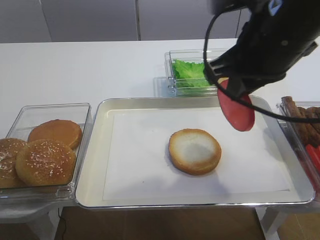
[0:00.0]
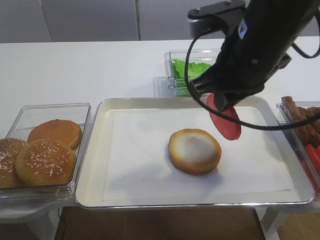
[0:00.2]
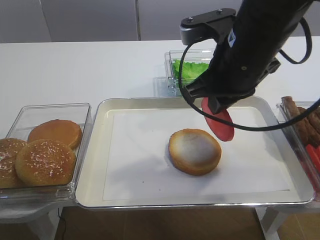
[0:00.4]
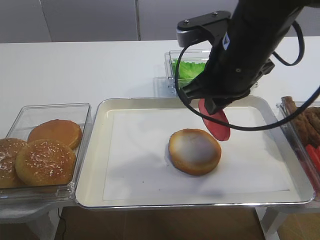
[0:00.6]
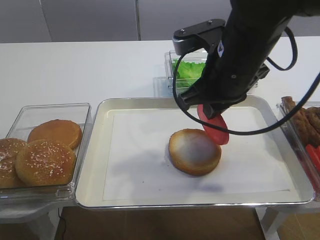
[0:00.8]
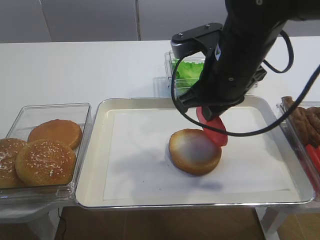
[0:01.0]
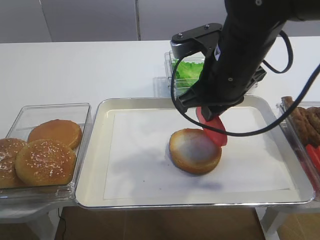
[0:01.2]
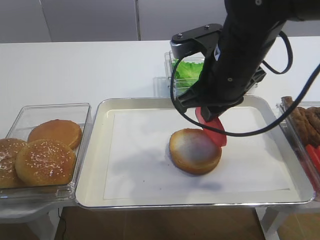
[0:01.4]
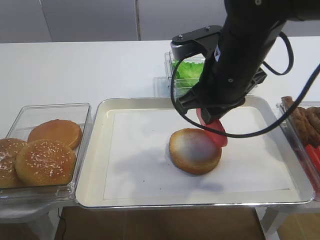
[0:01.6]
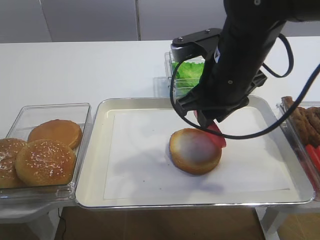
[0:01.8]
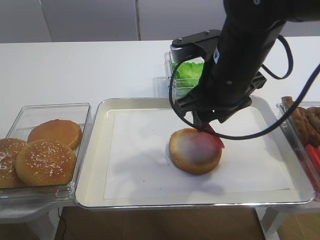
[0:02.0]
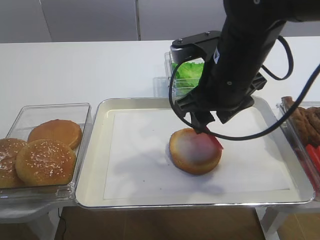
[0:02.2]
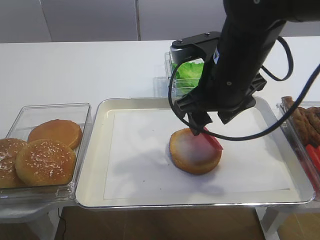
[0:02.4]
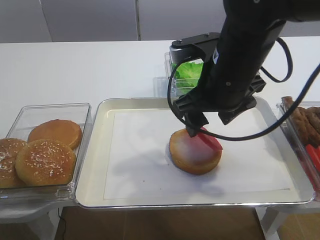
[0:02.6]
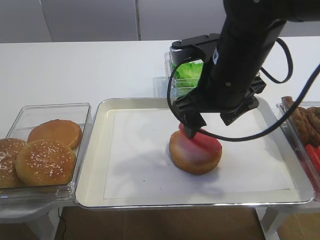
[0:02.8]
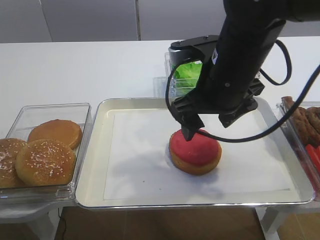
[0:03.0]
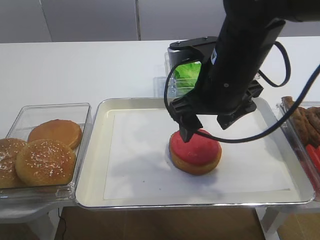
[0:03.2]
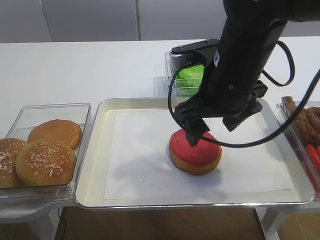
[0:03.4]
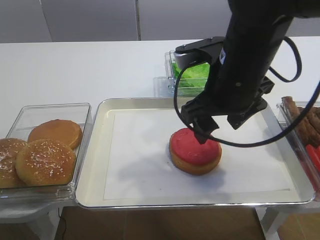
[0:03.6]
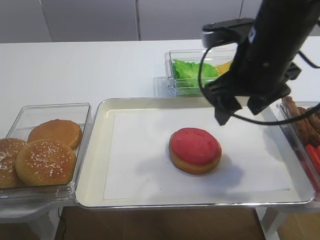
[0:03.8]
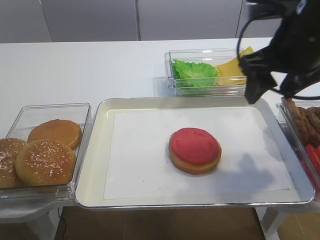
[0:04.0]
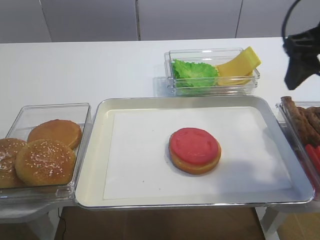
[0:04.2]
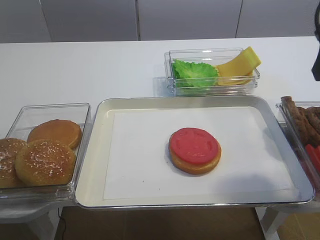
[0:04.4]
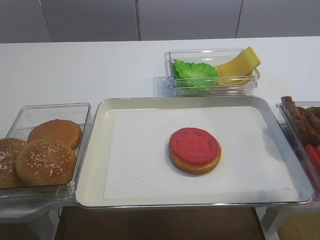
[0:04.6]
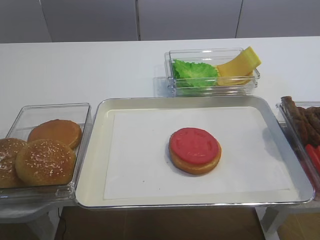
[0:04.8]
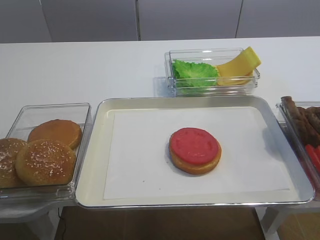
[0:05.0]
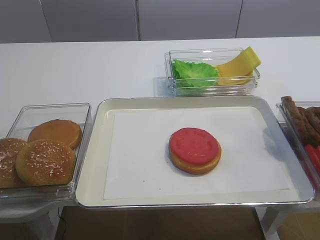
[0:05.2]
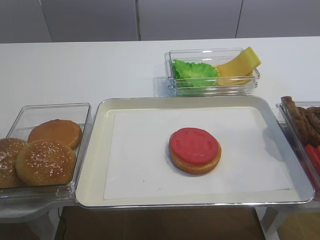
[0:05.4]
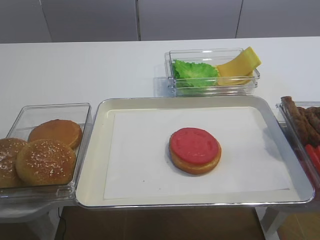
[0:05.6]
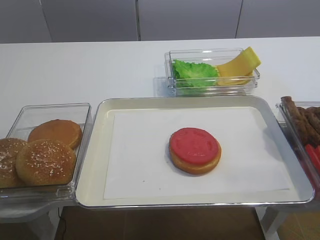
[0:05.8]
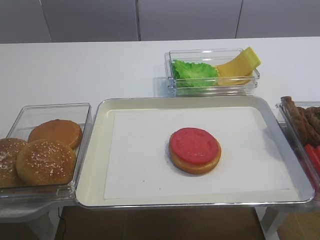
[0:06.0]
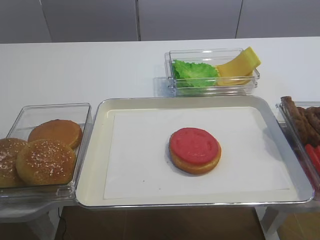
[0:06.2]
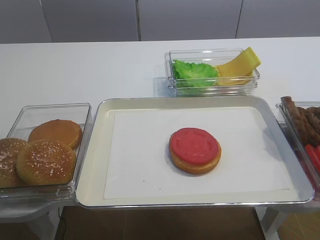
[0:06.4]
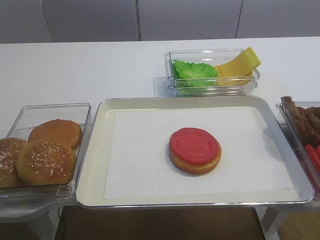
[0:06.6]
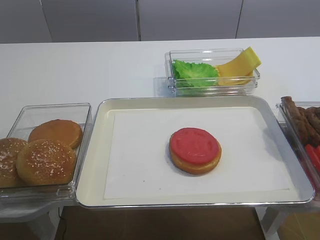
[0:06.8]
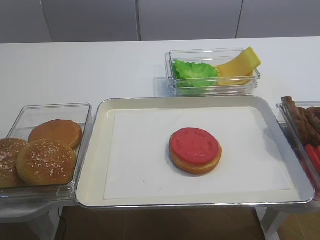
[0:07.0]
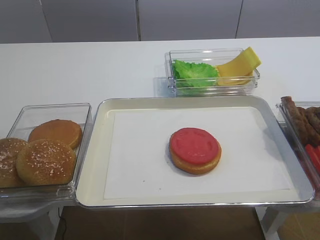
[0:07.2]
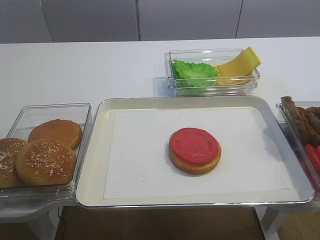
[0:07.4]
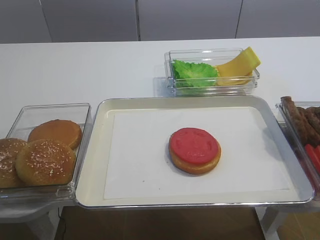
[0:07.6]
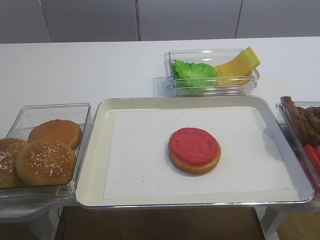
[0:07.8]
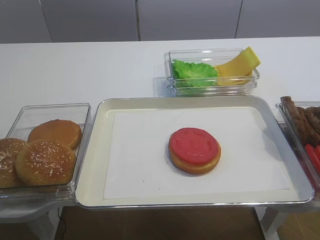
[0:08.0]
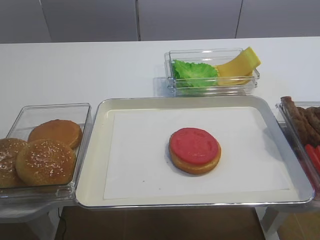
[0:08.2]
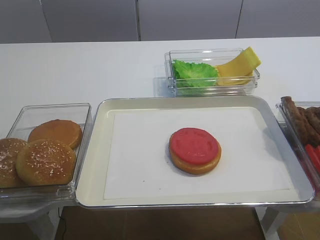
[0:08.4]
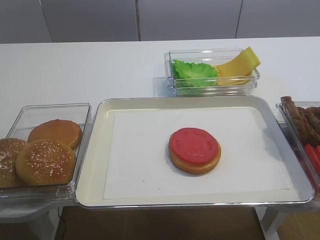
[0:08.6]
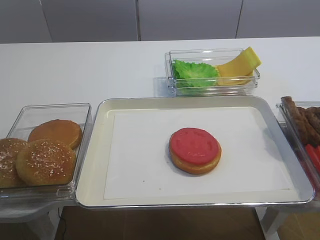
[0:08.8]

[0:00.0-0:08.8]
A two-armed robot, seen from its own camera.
Step, 0:00.0 to 0:03.8: Place the tomato slice on the bread slice with the right gripper.
0:00.0 to 0:01.4: The right gripper goes roughly 5 cm downward.
0:01.4 to 0:03.0: The right gripper opens its fingers.
0:03.0 to 0:04.4: The right gripper is displaced to the right and upward by about 20 cm.
0:04.4 to 0:05.8: The right gripper heads backward, covering some 25 cm.
0:07.4 to 0:08.8: Both grippers stay put.

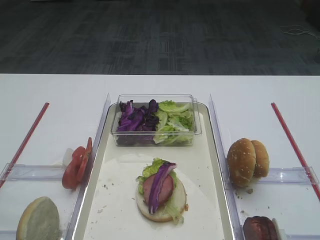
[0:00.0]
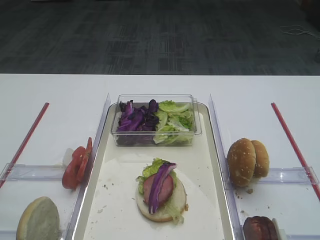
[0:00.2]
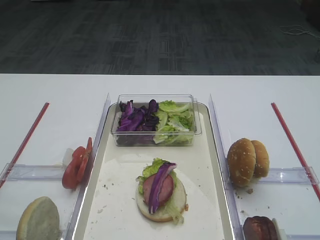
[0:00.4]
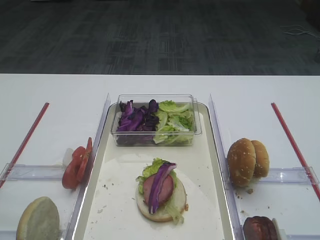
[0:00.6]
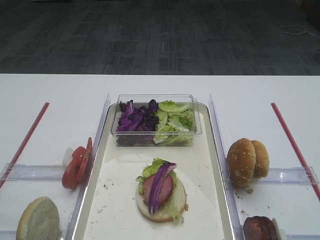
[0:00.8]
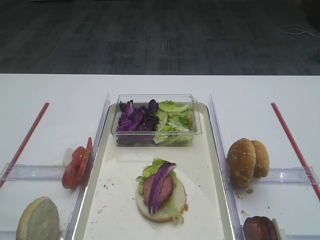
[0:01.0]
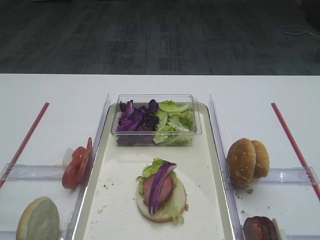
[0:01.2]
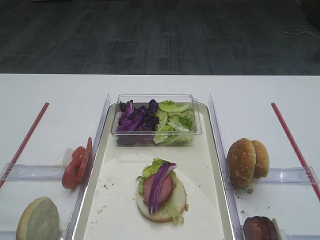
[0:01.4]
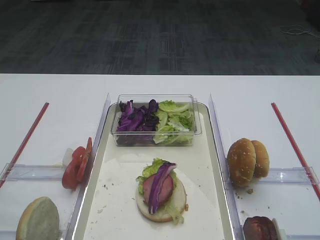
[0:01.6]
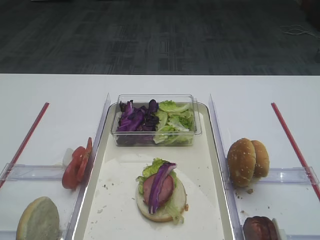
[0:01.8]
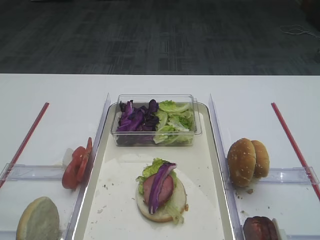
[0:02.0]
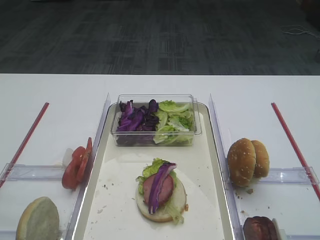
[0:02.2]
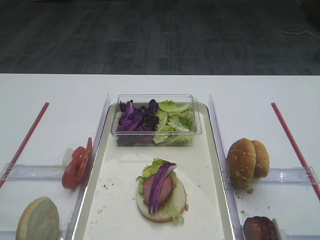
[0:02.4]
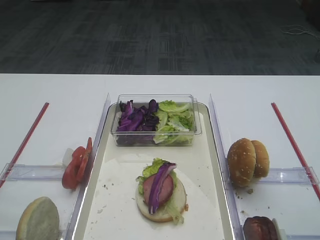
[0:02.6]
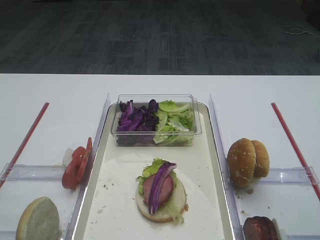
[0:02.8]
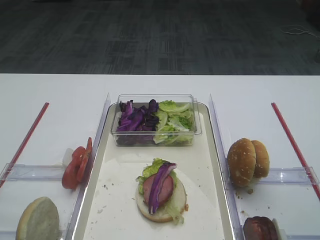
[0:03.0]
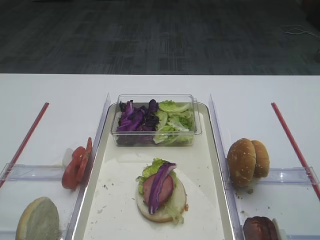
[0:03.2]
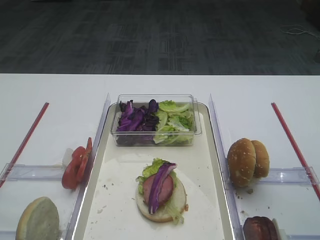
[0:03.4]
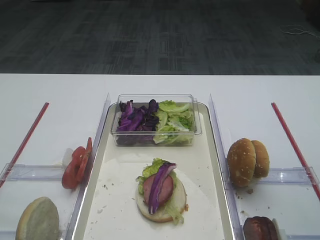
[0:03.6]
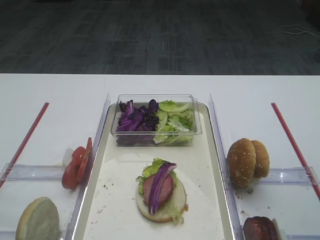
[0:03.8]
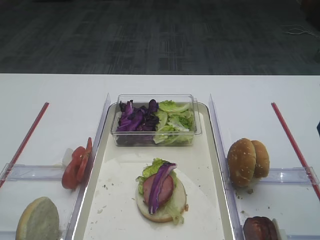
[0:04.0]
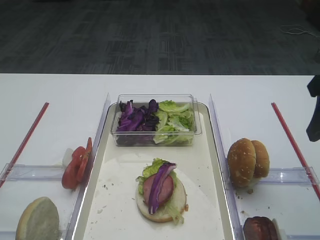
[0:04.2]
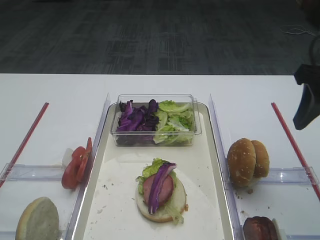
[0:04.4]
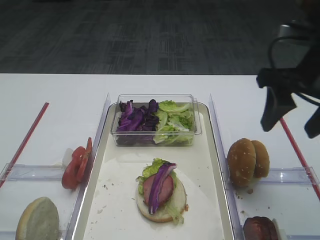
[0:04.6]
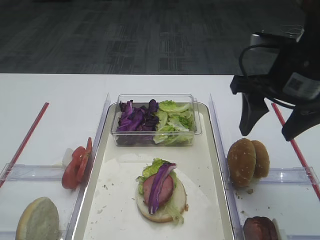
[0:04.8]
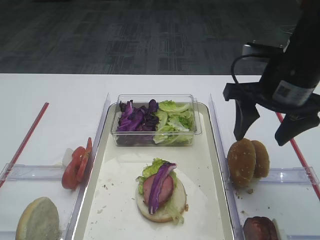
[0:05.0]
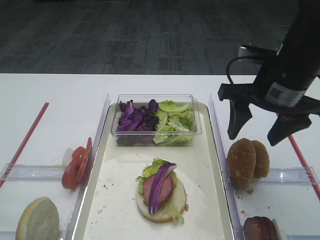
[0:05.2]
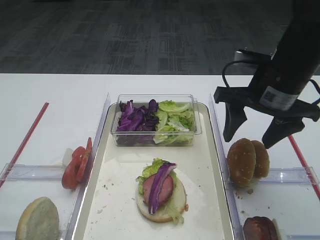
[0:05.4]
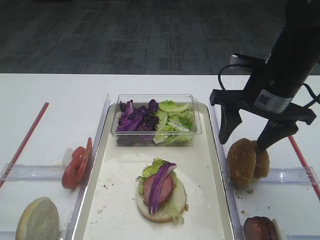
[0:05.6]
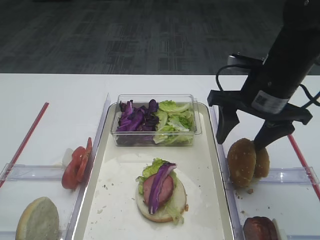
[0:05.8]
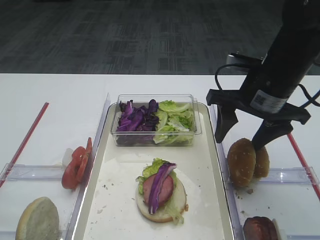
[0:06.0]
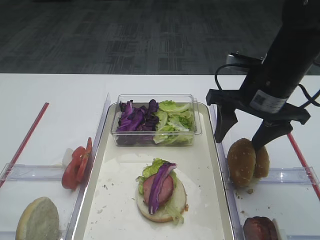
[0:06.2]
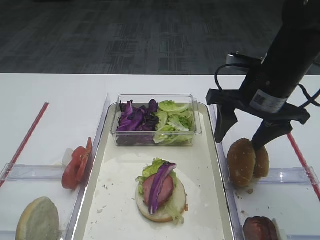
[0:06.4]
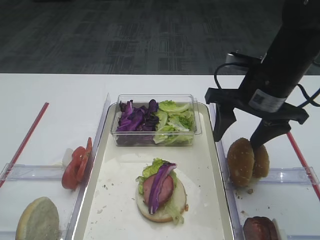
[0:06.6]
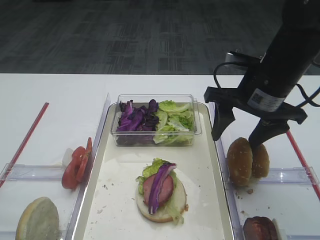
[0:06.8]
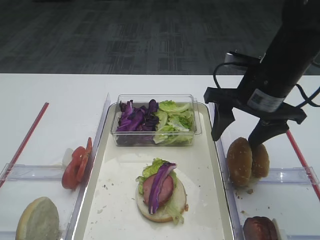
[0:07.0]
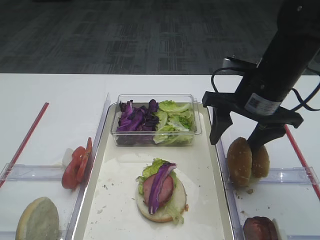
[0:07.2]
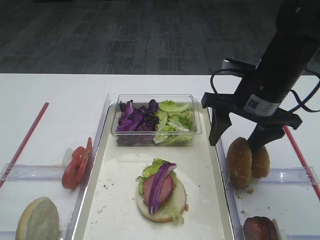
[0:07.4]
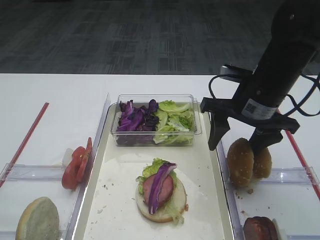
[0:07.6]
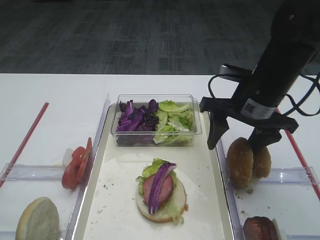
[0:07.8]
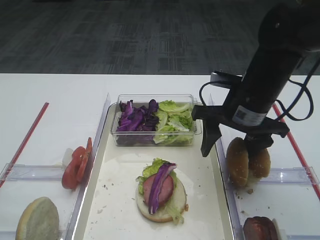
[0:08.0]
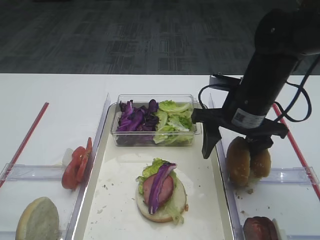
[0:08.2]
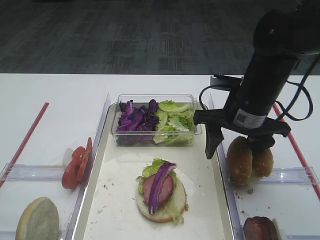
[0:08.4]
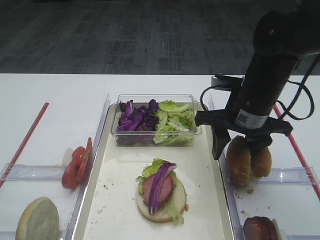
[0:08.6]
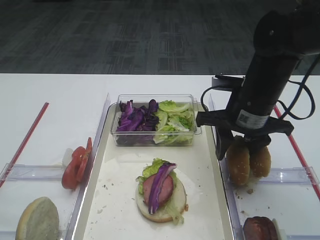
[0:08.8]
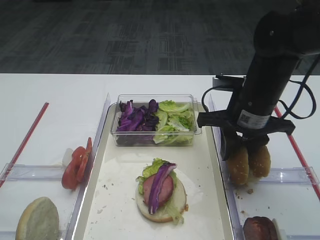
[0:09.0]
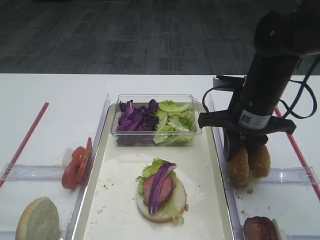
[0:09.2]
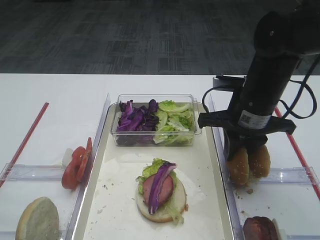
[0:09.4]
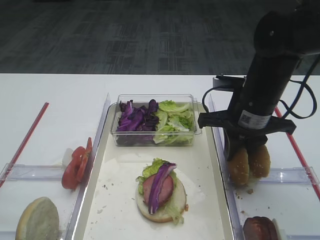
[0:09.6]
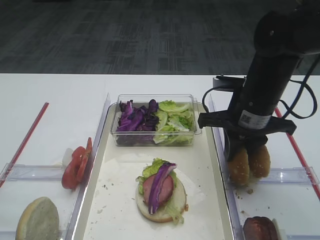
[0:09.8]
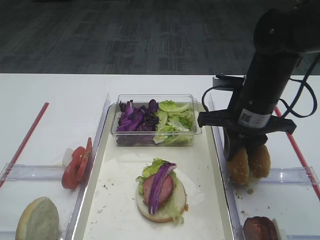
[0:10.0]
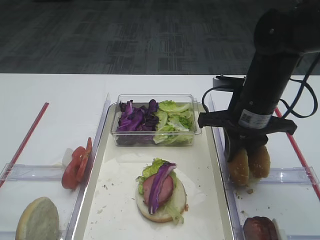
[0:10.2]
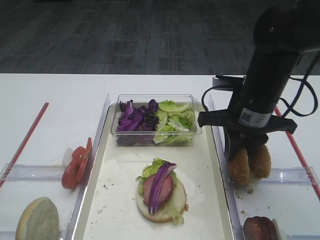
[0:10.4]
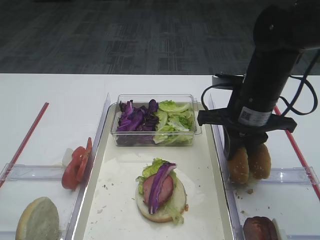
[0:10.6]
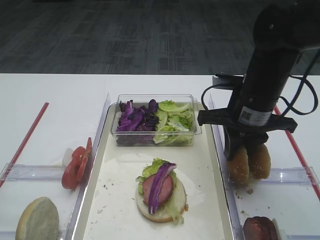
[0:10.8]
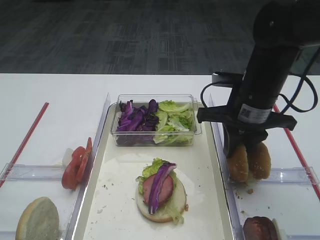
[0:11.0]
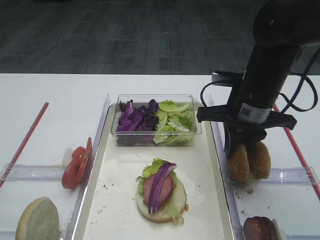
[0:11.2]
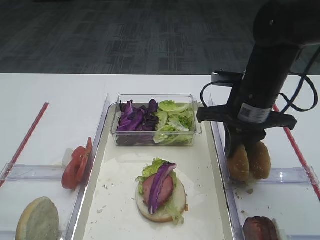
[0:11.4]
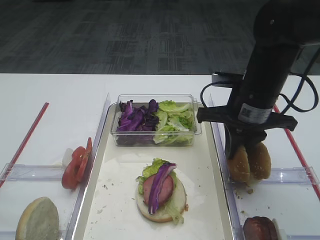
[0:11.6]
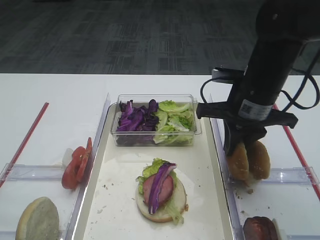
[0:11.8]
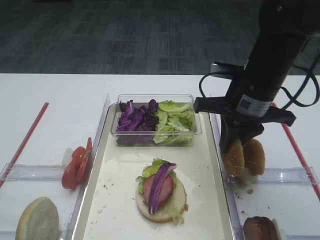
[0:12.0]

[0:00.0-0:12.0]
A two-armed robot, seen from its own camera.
0:03.0 to 0:04.4: The right gripper goes roughly 10 cm forward.
0:04.4 to 0:06.0: The right gripper is displaced to the left, downward and forward by some 15 cm.
0:06.0 to 0:07.6: There are only small adjustments of the grippers.
0:07.6 to 0:09.0: The right gripper closes up.
0:09.0 to 0:10.4: Both grippers stay put.
0:10.4 to 0:12.0: The grippers stay close to where they were, moving slightly.

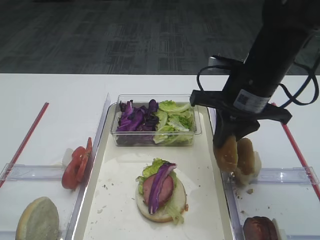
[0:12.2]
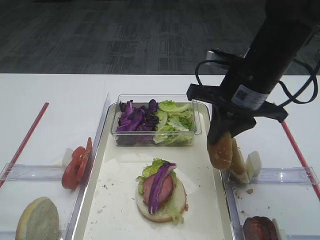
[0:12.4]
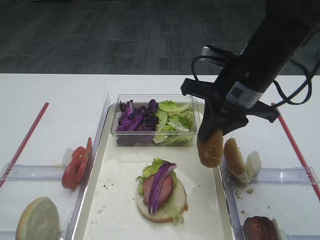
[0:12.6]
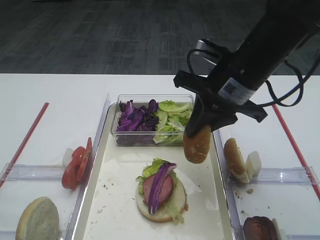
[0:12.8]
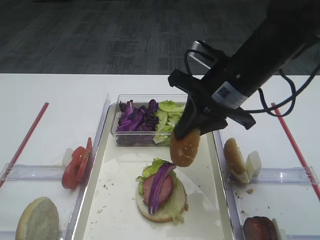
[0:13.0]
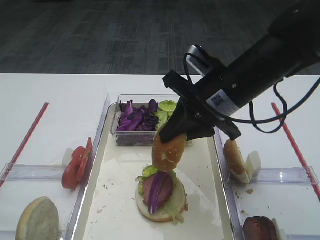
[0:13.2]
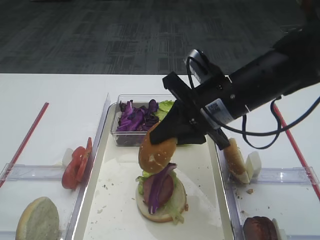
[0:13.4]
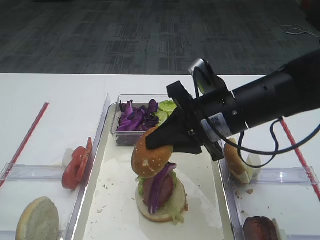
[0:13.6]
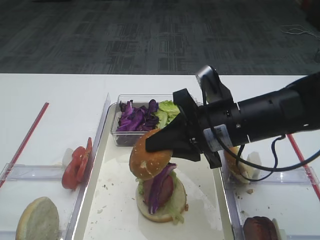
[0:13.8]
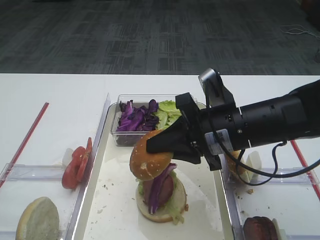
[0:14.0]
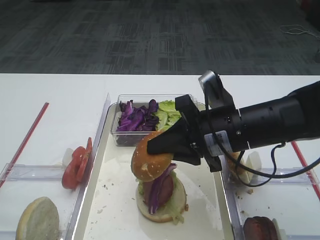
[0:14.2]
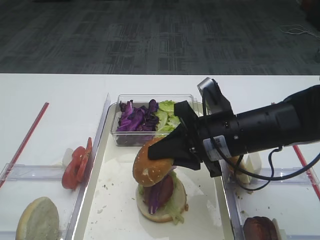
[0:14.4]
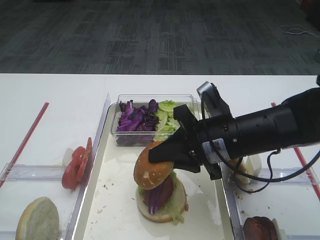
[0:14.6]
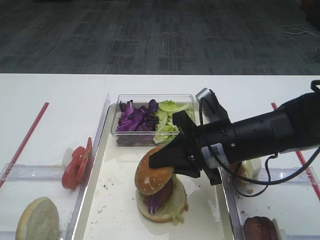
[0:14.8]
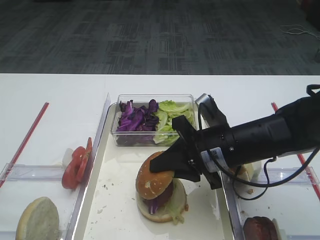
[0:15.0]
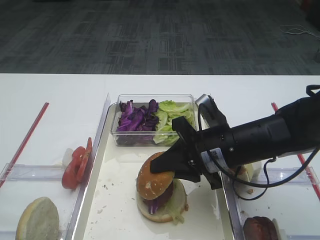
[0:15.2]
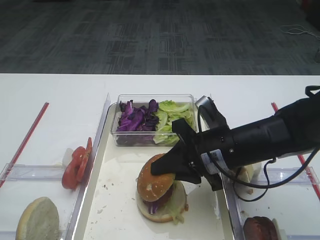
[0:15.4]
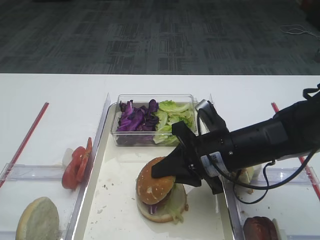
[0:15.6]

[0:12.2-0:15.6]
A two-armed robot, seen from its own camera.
0:12.2 to 0:13.8: The right gripper moves about 5 cm.
0:13.8 to 0:15.6: The right gripper moves downward, roughly 5 cm.
